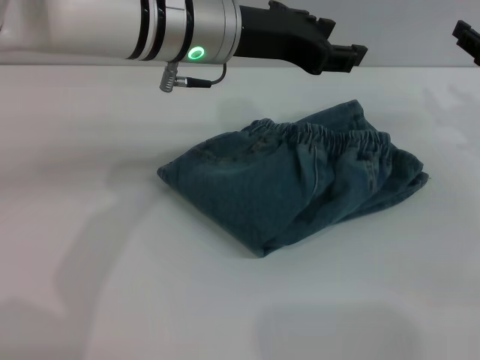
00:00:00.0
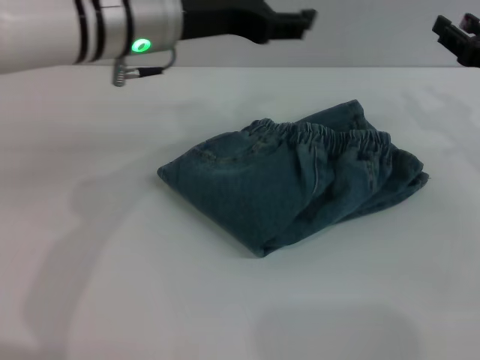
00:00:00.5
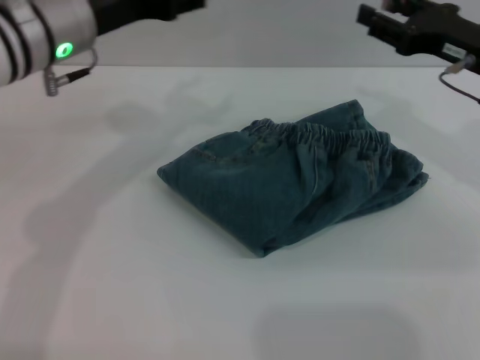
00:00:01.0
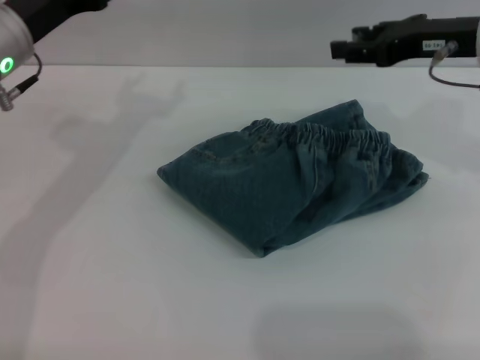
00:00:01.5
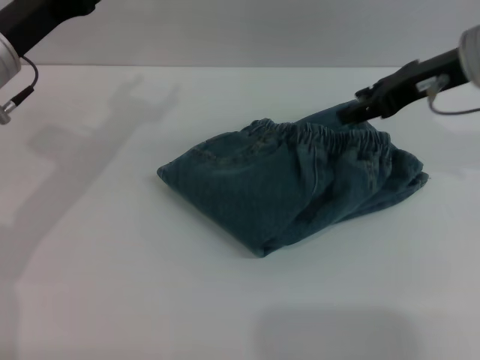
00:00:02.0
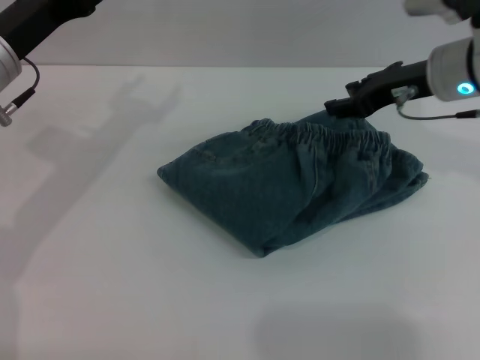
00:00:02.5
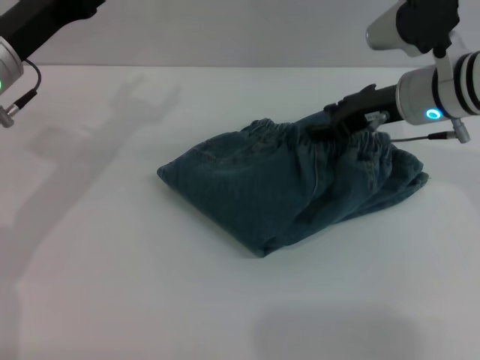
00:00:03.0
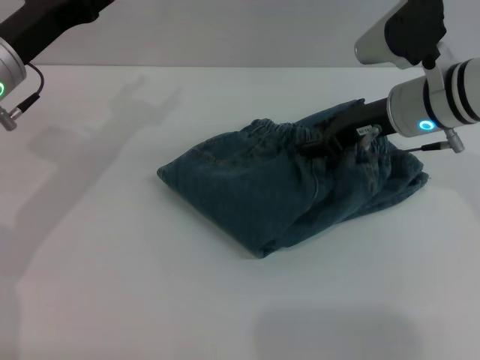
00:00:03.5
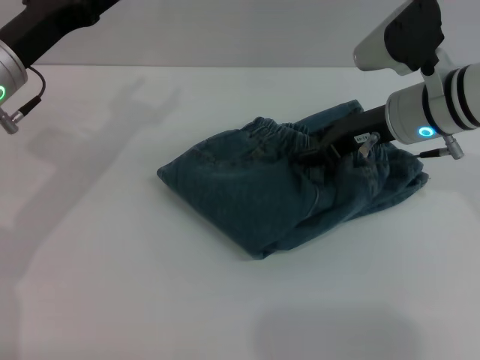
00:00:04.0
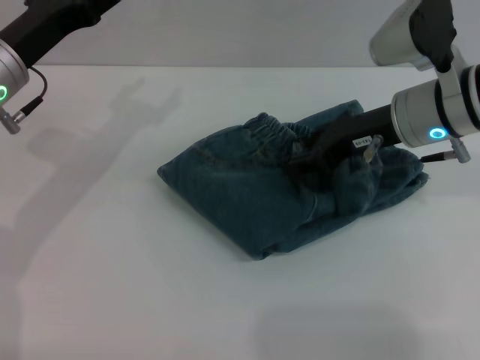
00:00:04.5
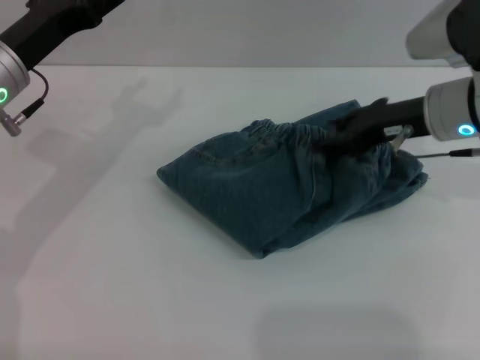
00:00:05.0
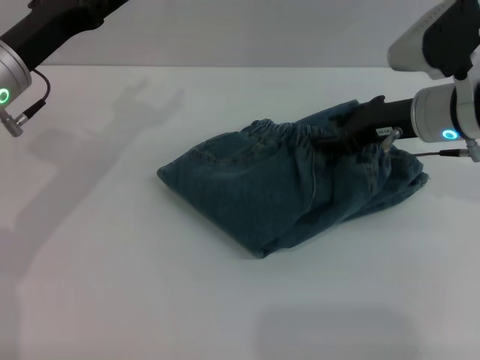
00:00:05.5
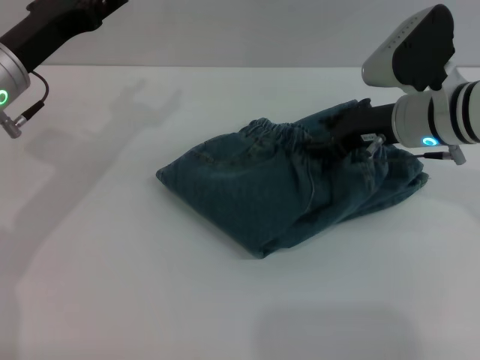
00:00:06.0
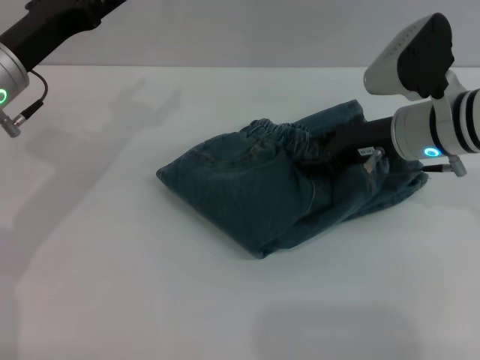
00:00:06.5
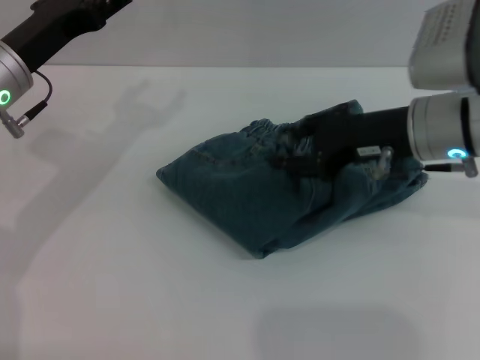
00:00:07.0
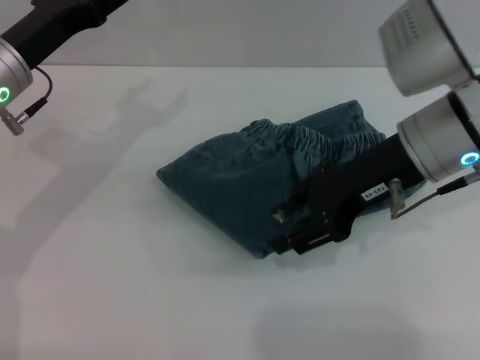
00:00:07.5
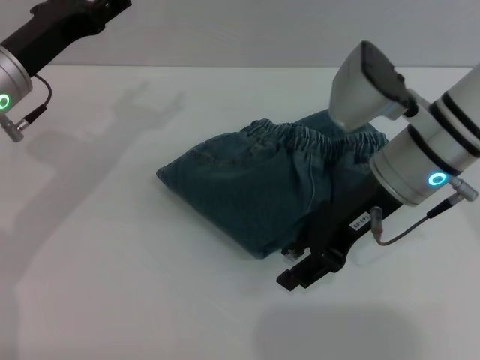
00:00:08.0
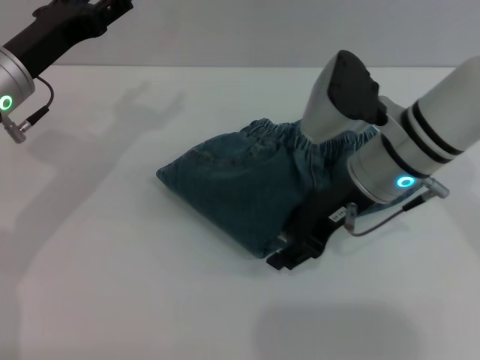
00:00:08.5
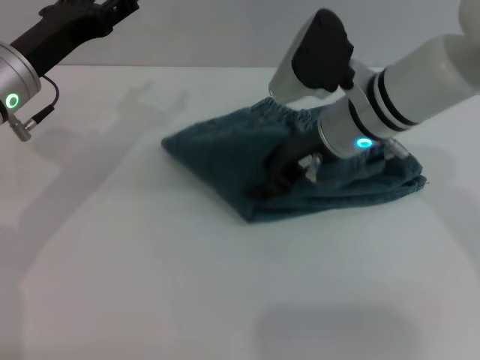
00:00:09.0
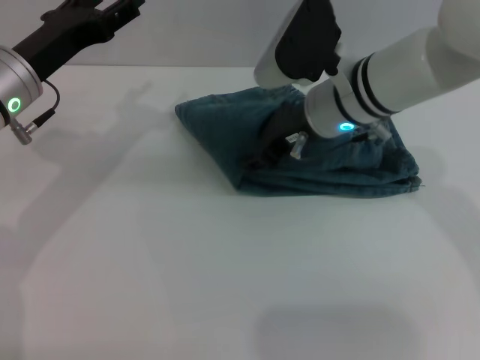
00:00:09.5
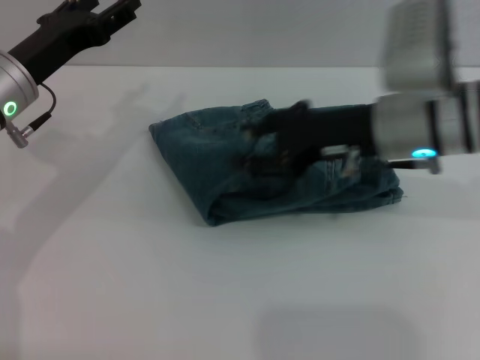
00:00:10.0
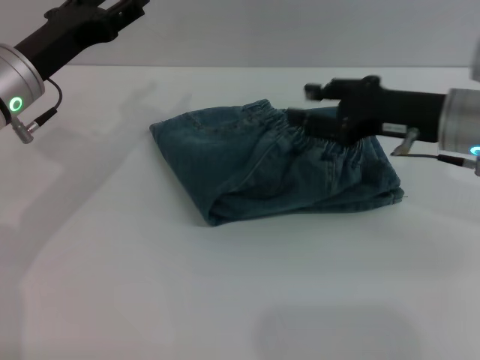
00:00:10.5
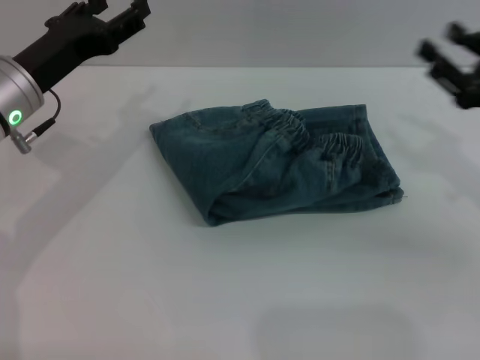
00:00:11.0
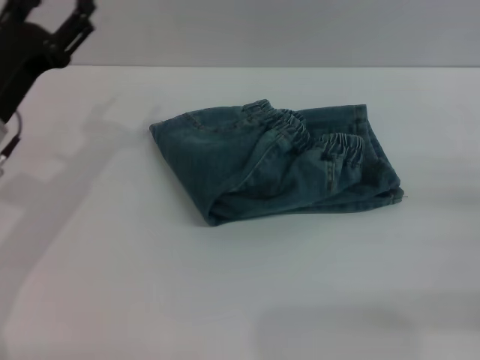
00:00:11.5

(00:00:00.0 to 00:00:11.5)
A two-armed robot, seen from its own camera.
Step, 00:00:00.5 - 00:00:10.0: Place the folded trousers onto the center area with the right grippers.
00:00:00.0 - 00:00:02.0: The left gripper travels to the left by some 15 cm, and opens its fingers, while the right gripper moves to the left and upward, roughly 15 cm.
00:00:02.0 - 00:00:04.0: The right gripper goes about 5 cm downward.
00:00:04.0 - 00:00:06.0: There are only small adjustments of the grippers.
00:00:06.0 - 00:00:07.5: The right gripper goes approximately 10 cm upward and backward.
00:00:07.5 - 00:00:09.5: The right gripper shifts some 10 cm forward and to the left.
00:00:09.5 - 00:00:11.5: The left gripper shifts by approximately 5 cm; the right gripper moves to the right and backward, approximately 35 cm.
